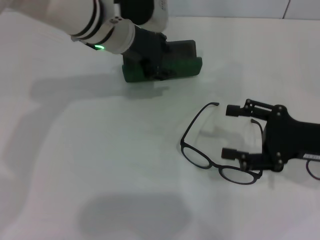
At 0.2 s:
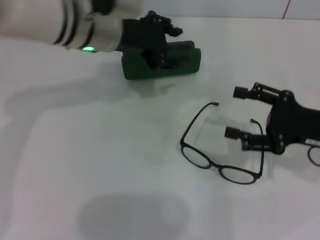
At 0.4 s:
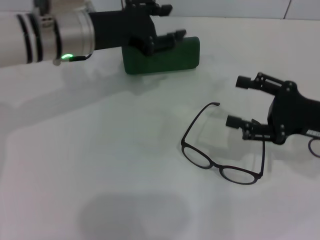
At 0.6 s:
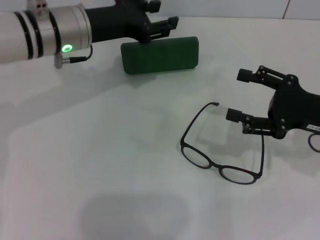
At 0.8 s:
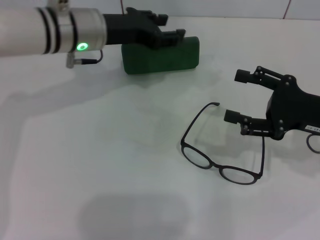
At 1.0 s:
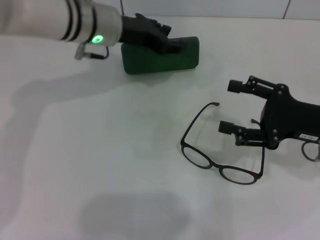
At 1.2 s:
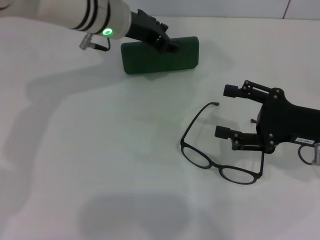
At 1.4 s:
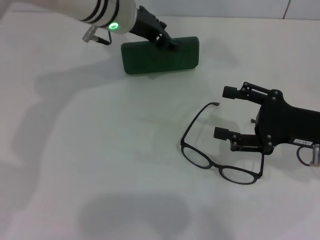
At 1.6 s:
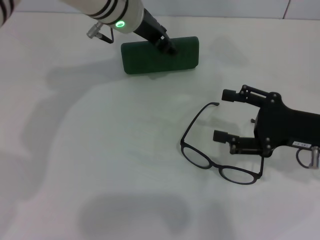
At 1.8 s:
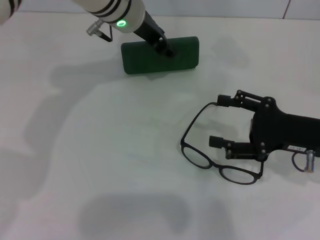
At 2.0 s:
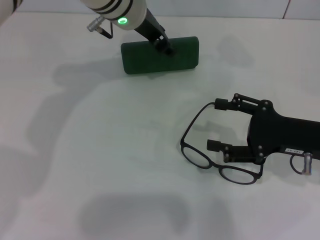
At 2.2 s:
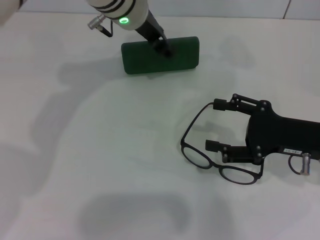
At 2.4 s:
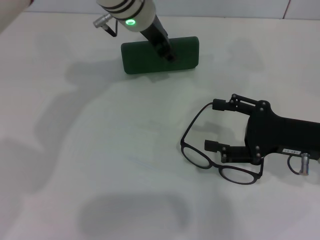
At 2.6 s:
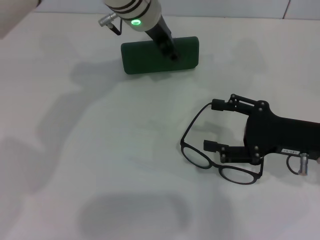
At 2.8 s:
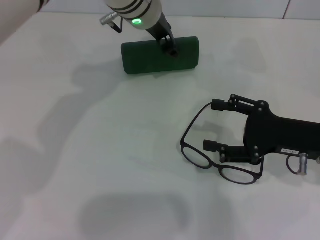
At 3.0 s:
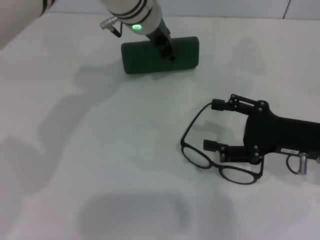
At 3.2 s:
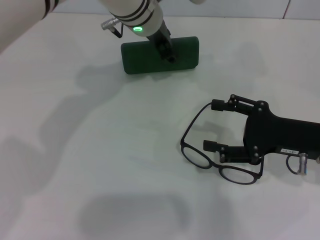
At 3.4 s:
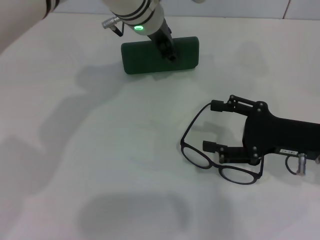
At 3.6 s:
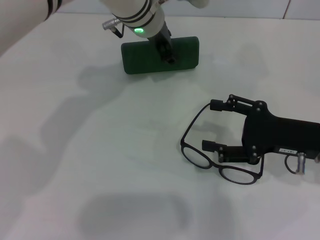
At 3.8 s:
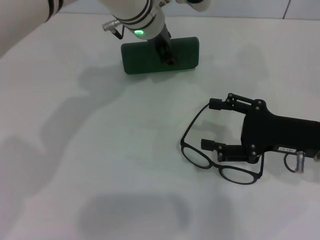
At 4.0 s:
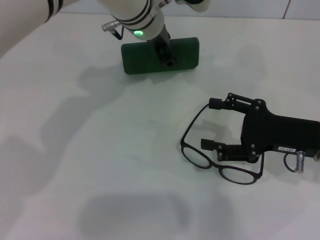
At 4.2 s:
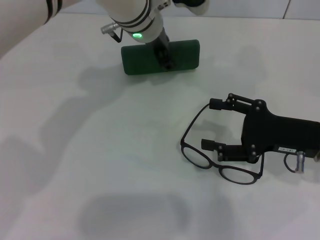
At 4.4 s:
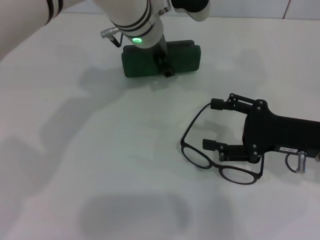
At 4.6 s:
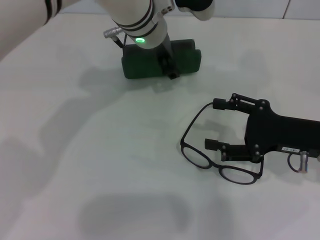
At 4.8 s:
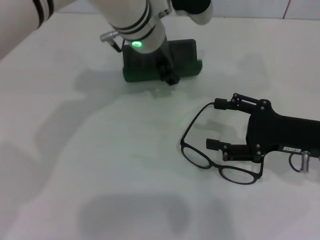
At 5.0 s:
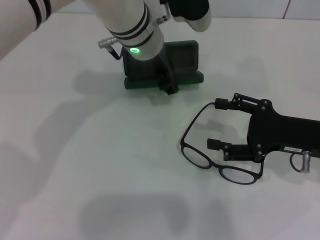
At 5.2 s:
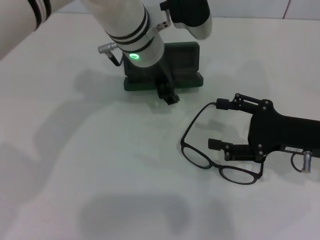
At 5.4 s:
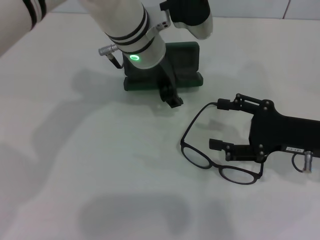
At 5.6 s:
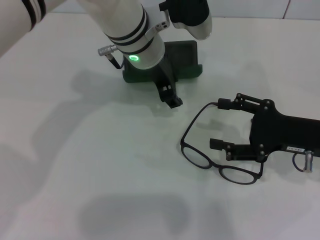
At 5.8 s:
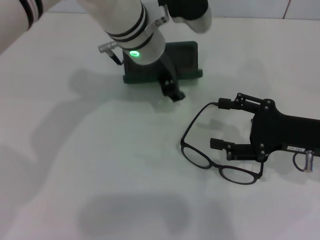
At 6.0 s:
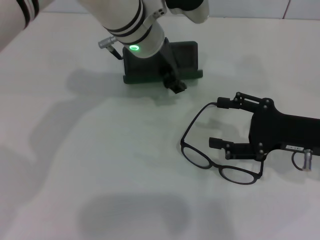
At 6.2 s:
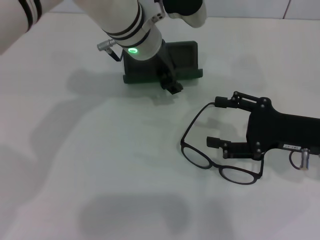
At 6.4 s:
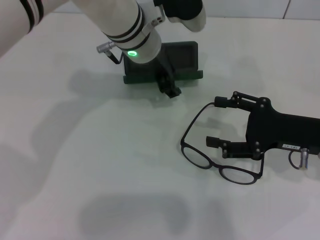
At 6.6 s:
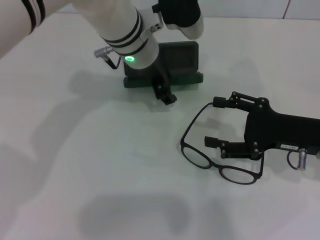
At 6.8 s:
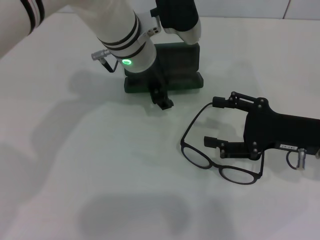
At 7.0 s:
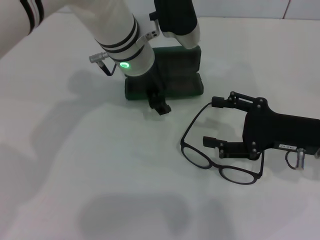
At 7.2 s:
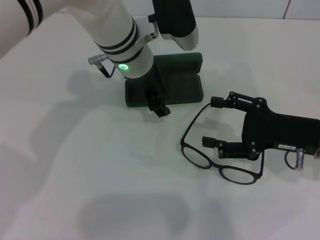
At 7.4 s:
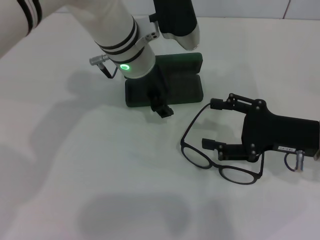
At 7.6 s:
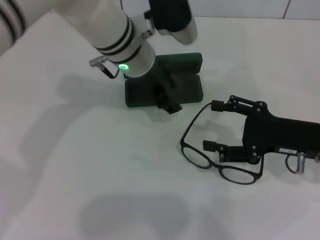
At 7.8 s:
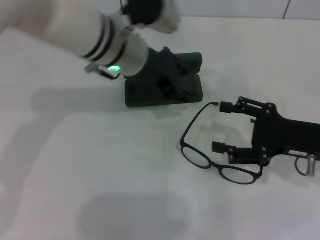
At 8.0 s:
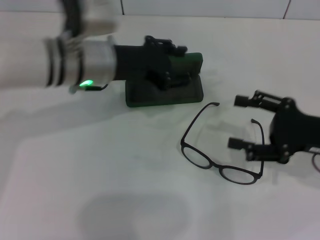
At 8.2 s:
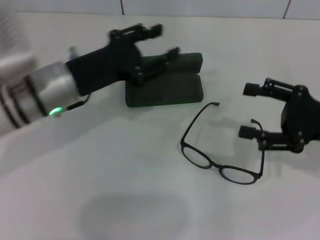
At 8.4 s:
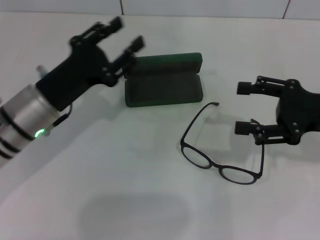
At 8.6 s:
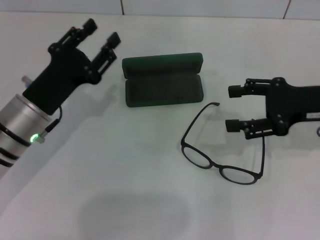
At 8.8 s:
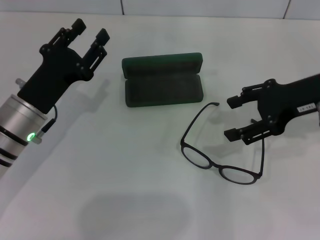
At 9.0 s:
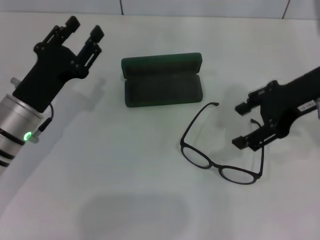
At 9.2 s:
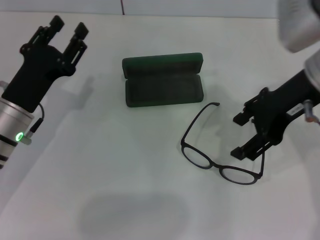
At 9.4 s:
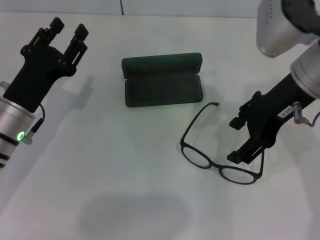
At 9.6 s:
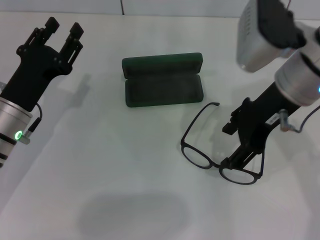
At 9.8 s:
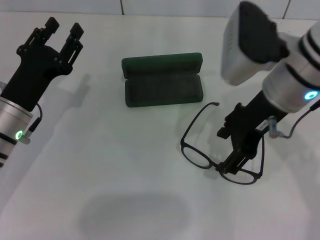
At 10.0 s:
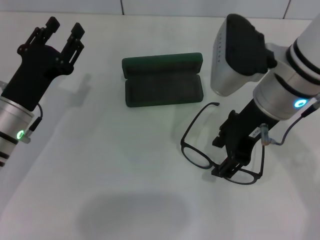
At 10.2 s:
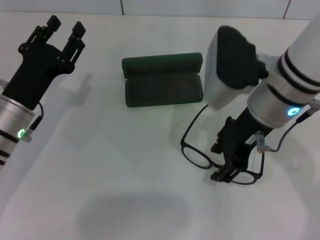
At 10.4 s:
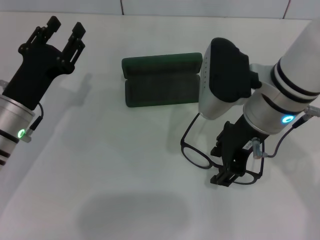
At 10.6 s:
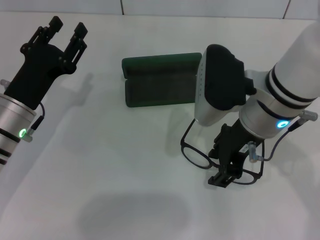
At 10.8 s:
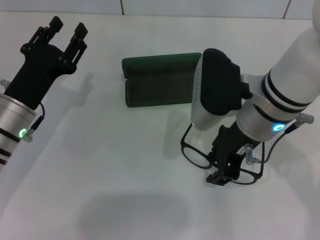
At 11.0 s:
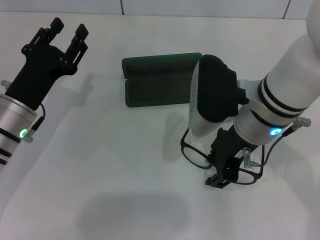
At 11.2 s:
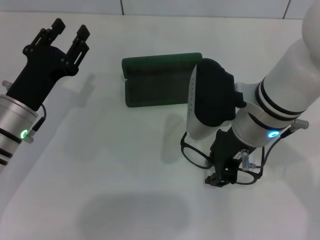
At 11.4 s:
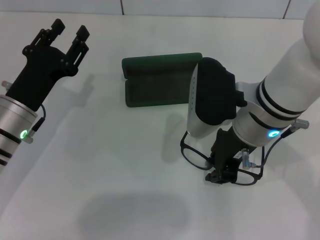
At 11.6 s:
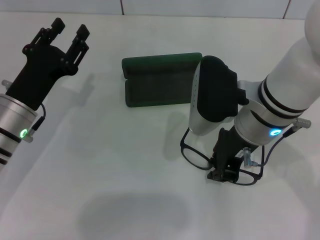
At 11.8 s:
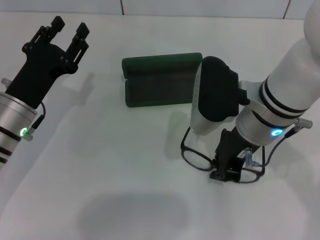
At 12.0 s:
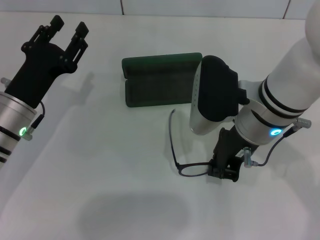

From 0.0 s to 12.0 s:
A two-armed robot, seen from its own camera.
Step, from 0.0 s to 7.4 s: Place the glasses case in the center of the table with your left hand.
Step, from 7.6 s to 11.8 s: Grab the eyeglass frame with your right hand.
From 0.0 s to 1.6 s: The left gripper travels to the left and back again, roughly 5 cm each way.
From 1.6 s to 3.0 s: The grippers stay close to where they were, moving slightly.
From 3.0 s to 7.6 s: The grippers make only small movements.
From 7.6 s to 9.0 s: The right gripper shifts some 15 cm upward. Meanwhile the left gripper moves to the left, backward and downward, approximately 20 cm.
From 9.0 s to 10.4 s: The right gripper is displaced to the left by approximately 10 cm.
From 10.4 s to 12.0 s: The right gripper closes its fingers.

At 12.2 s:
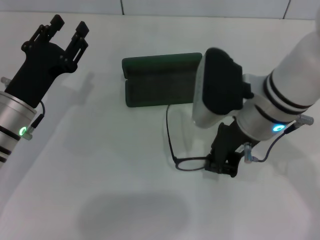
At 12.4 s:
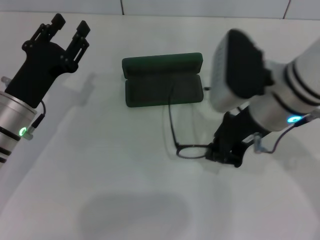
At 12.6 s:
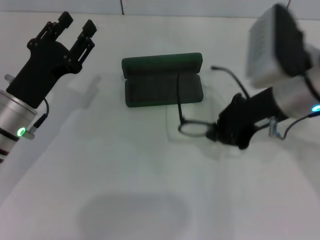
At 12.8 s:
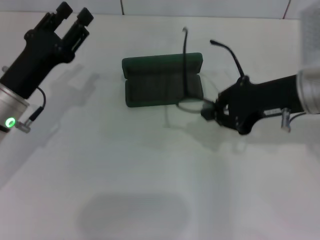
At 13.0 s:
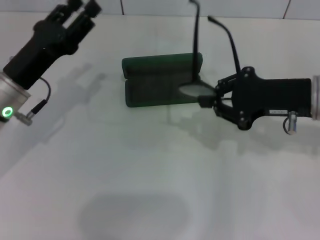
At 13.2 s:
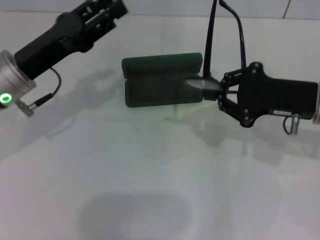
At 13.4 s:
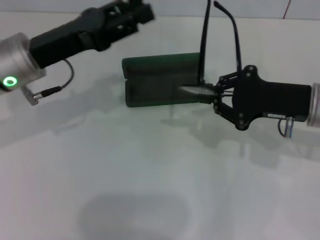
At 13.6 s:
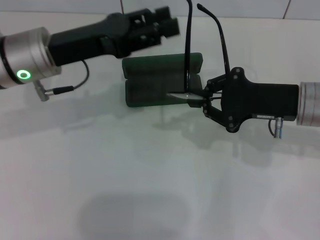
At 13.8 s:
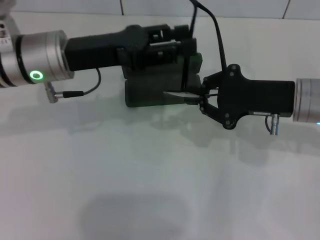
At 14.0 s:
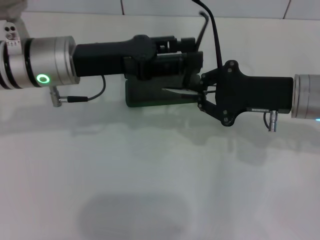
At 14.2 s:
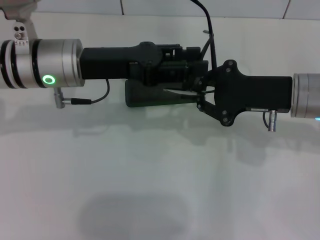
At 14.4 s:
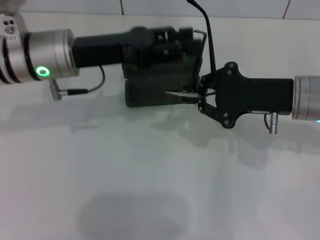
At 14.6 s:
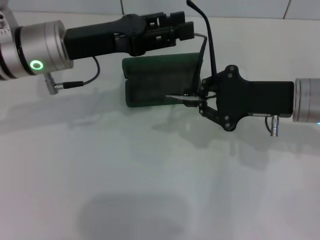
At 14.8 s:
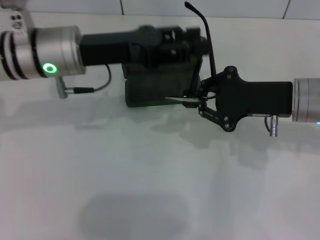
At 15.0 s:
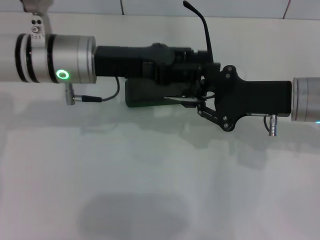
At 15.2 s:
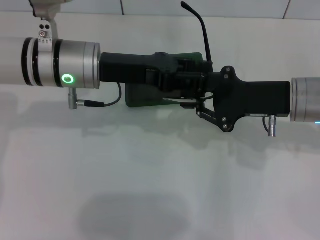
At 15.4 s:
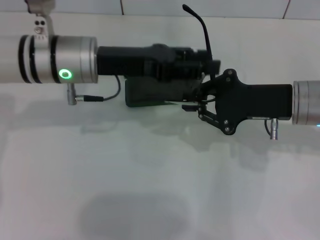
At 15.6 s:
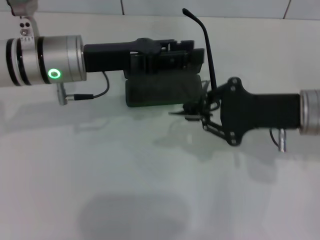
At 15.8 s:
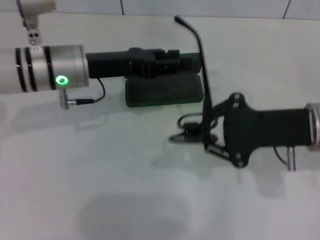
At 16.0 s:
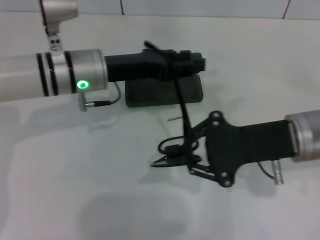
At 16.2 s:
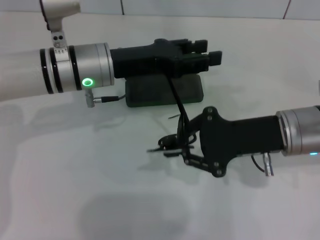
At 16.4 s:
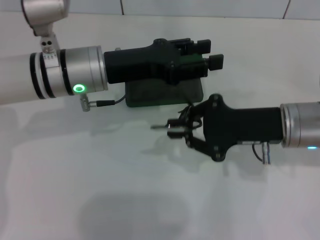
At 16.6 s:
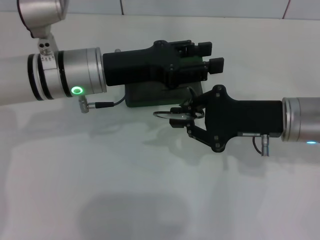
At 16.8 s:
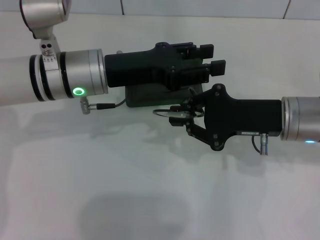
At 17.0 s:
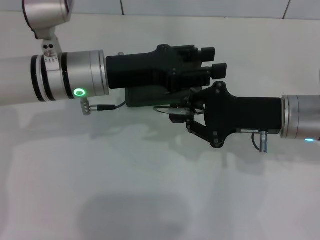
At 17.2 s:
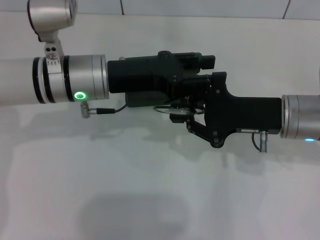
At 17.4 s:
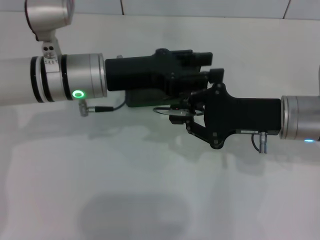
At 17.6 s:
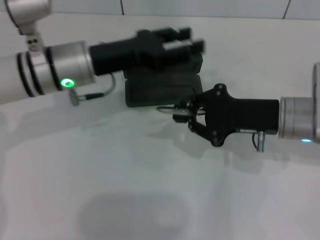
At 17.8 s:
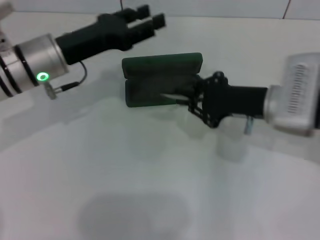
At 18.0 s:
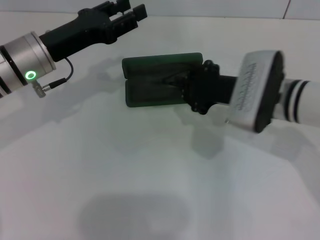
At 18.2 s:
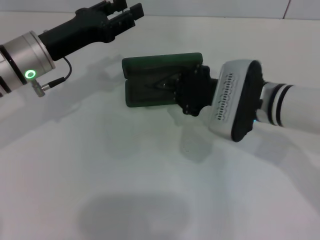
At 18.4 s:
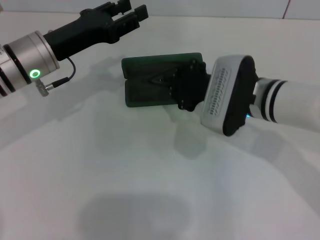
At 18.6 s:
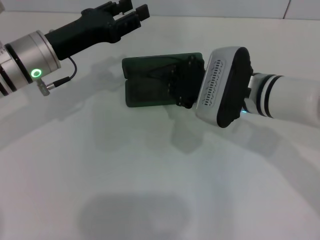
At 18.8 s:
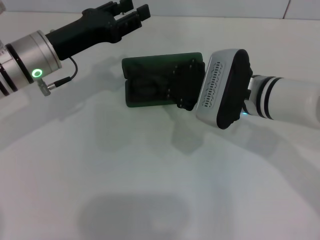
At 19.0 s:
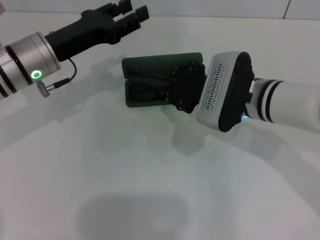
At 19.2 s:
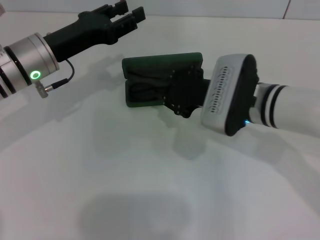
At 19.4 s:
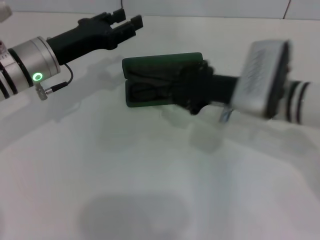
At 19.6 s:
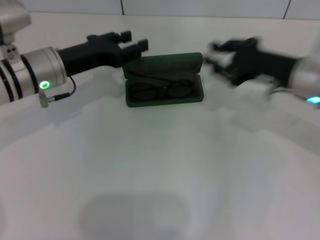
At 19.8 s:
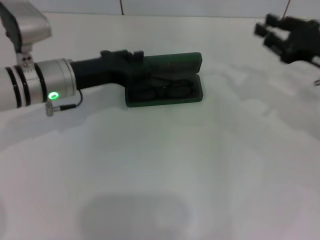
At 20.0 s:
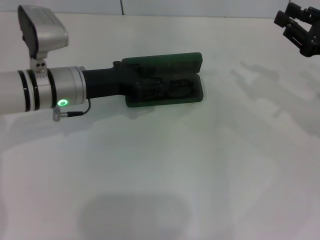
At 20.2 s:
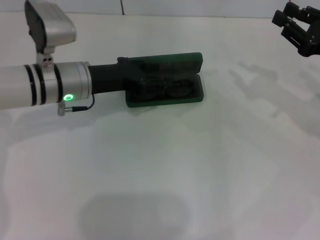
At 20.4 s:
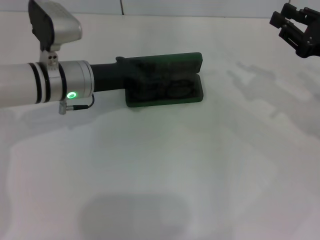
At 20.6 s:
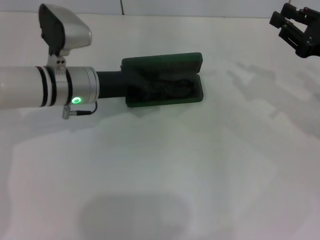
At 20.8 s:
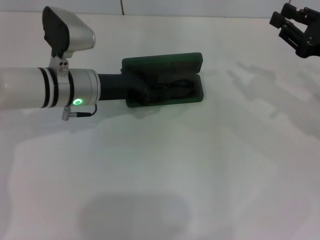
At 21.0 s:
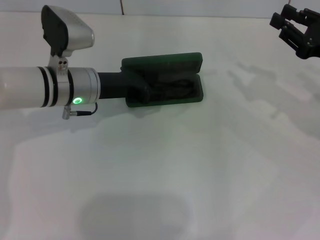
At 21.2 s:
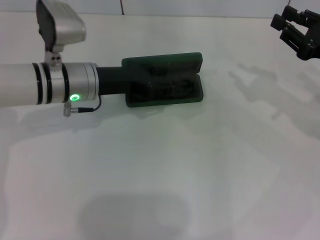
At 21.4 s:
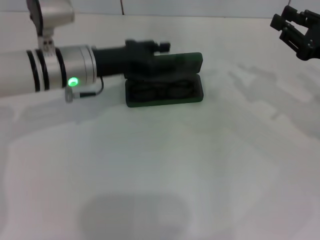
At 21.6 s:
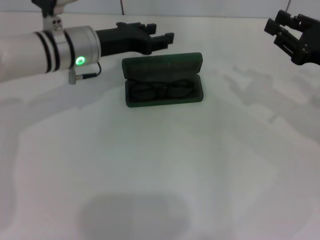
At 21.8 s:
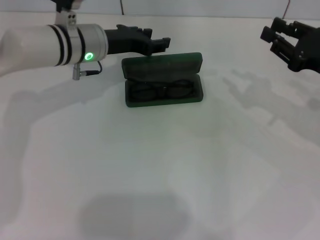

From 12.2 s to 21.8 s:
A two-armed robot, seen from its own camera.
Step, from 12.2 s to 17.4 s: Lift the glasses with your right hand.
Step, from 17.6 s to 19.0 s: Put the glasses into the case with your right hand.
From 12.2 s to 13.8 s: The right gripper goes roughly 10 cm to the right. Meanwhile the left gripper heads upward, forward and to the right, covering about 15 cm.
From 13.8 s to 15.4 s: The grippers make only small movements.
From 15.4 s to 17.0 s: There are only small adjustments of the grippers.
From 17.0 s to 18.6 s: The grippers both shift to the left by roughly 5 cm.
From 18.6 s to 20.2 s: The right gripper goes about 20 cm to the right.
From 20.2 s to 21.8 s: The left gripper heads forward, covering roughly 5 cm.
